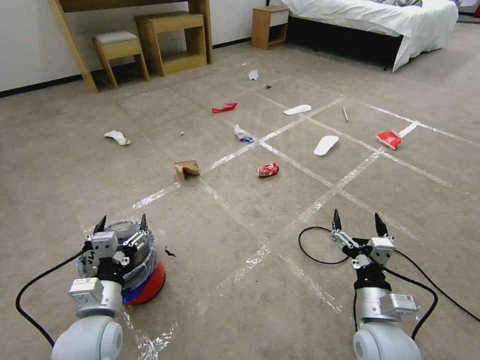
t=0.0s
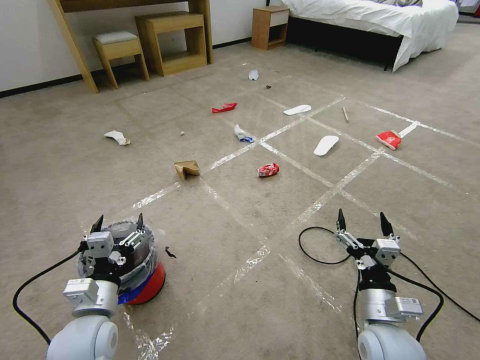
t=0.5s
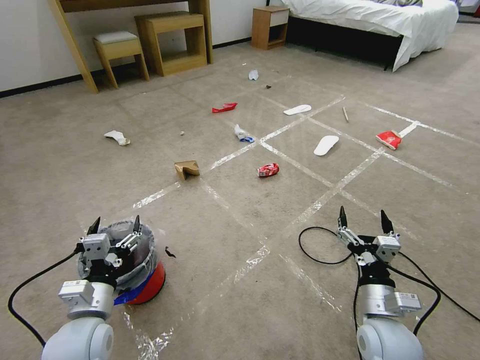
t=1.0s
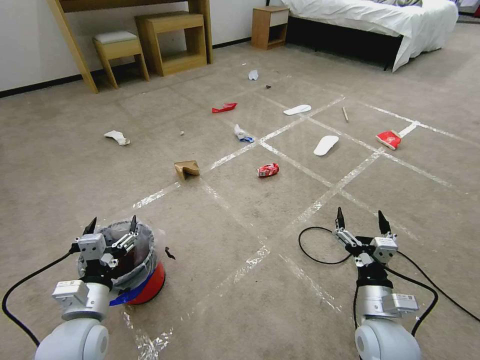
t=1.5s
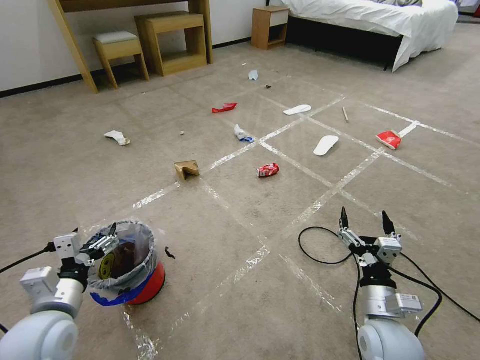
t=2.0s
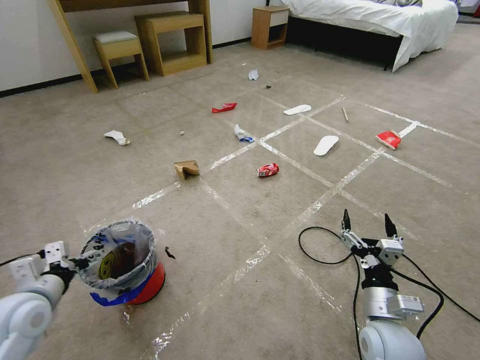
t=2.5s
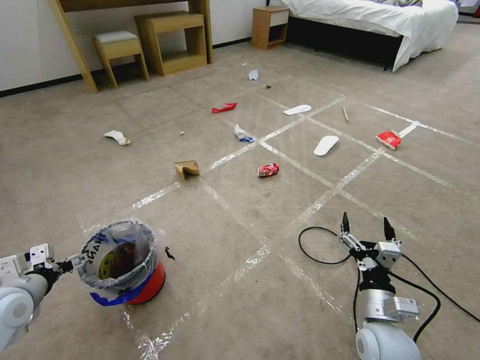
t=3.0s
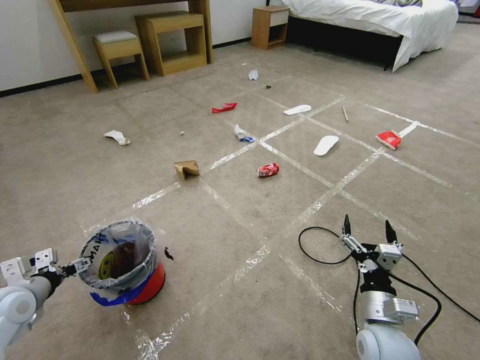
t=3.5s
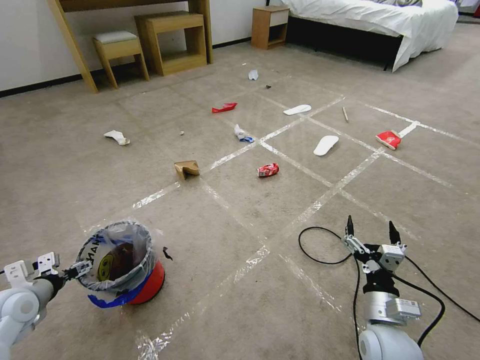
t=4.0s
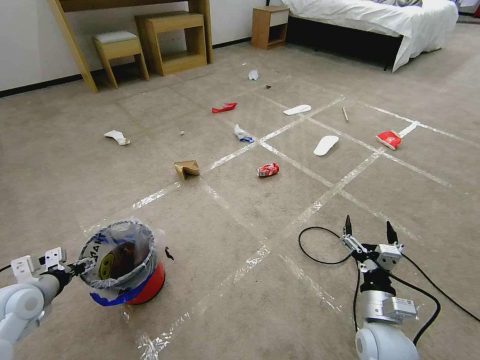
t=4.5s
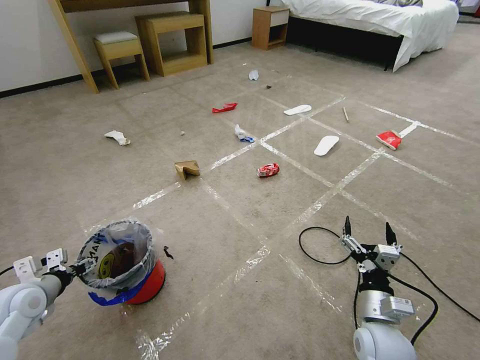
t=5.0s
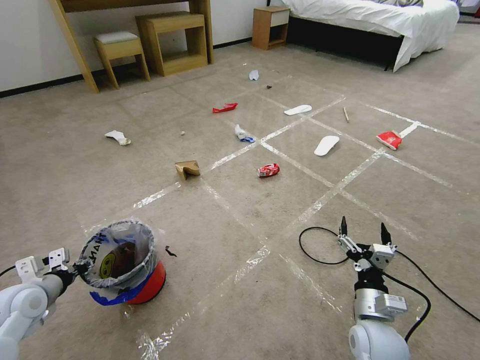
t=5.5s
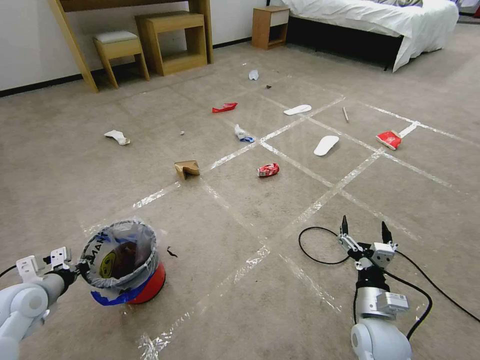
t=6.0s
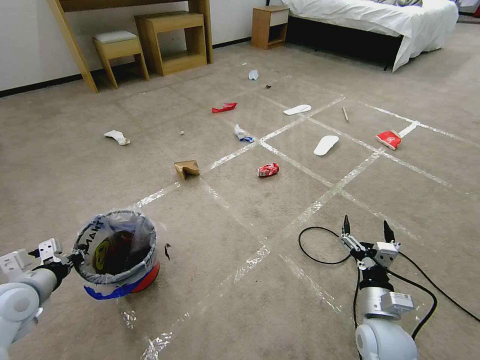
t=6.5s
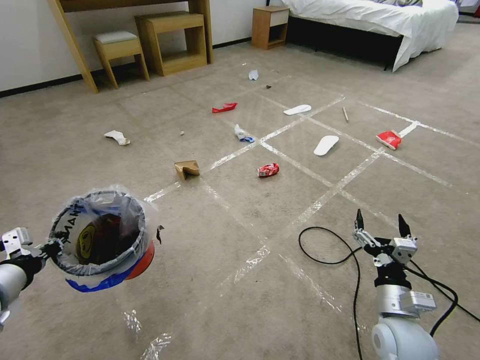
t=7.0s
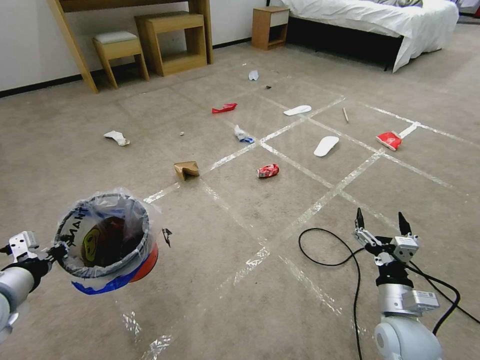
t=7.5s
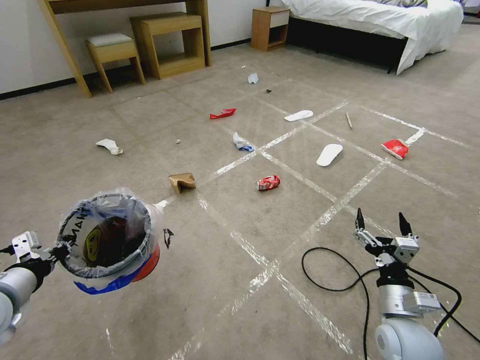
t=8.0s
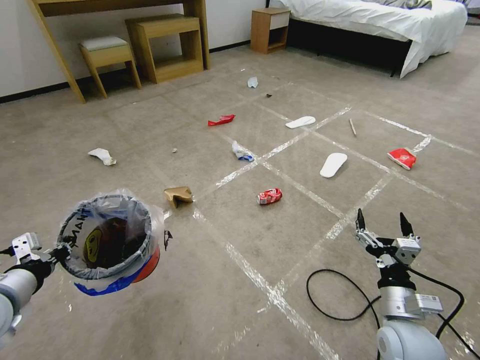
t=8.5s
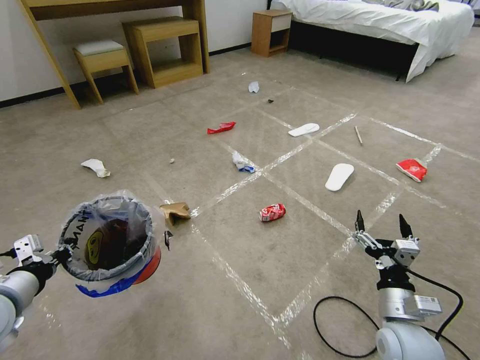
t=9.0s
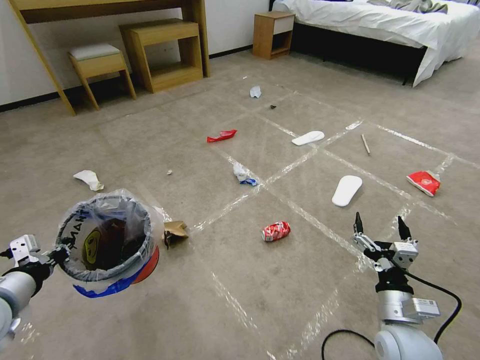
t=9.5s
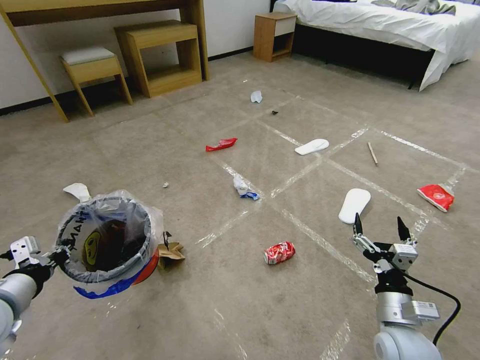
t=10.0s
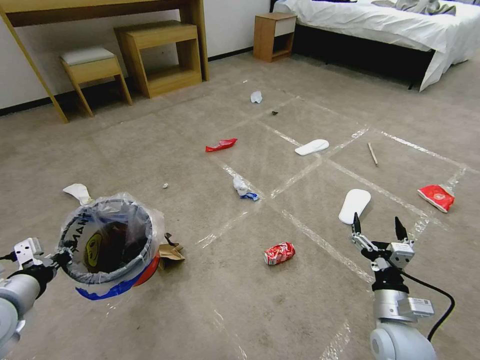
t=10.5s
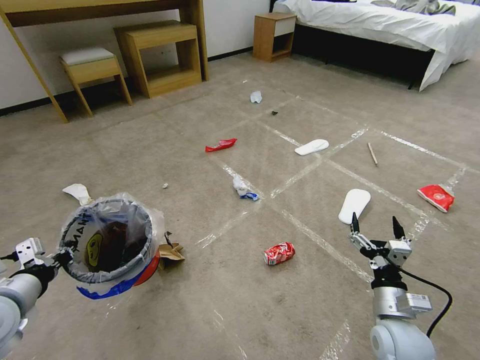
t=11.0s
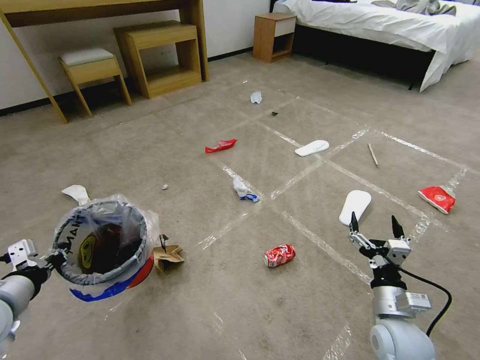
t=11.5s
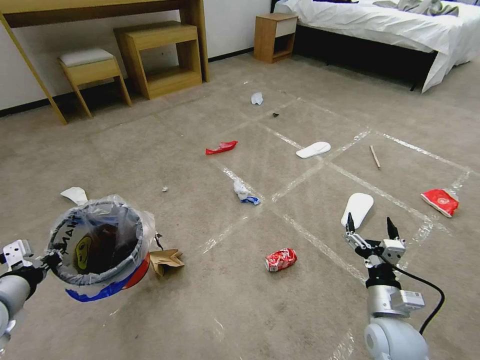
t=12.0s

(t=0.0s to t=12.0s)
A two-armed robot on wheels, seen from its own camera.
Task of the whole recording: Pick up the trash bin and place the garbage on the floor into it.
t=2.0s - t=4.0s: The left gripper travels to the left and forward by approximately 15 cm.
t=4.0s - t=6.0s: The left gripper closes its fingers.
t=6.0s - t=8.0s: The left gripper travels upward and backward by roughly 10 cm.
t=10.0s - t=12.0s: The grippers make only small movements.

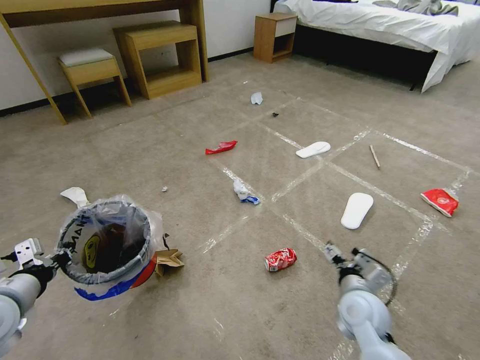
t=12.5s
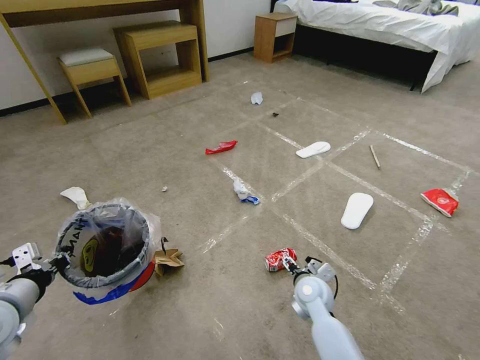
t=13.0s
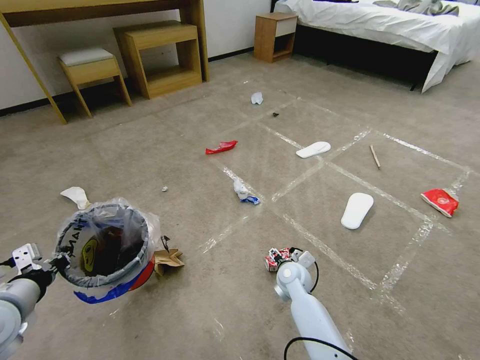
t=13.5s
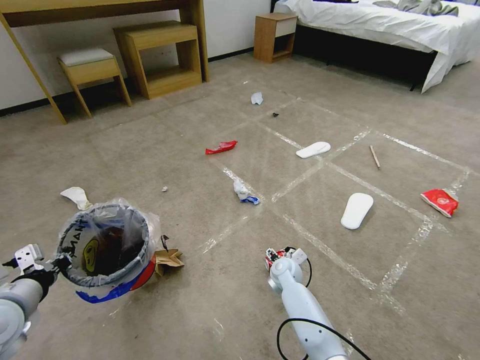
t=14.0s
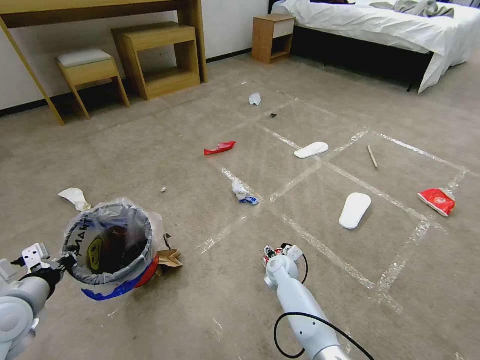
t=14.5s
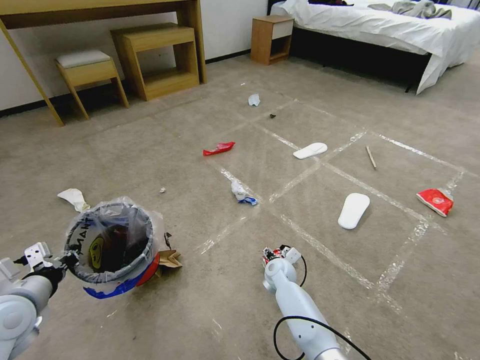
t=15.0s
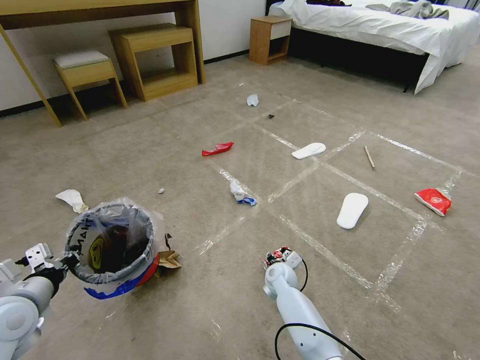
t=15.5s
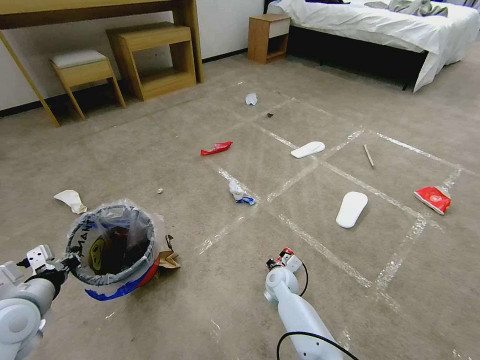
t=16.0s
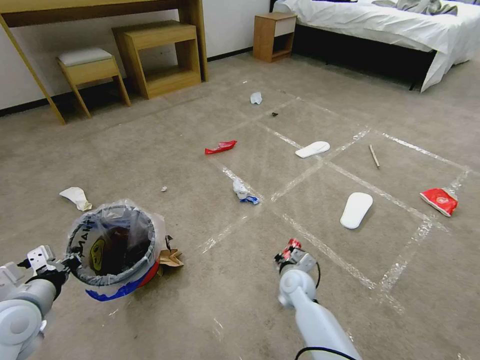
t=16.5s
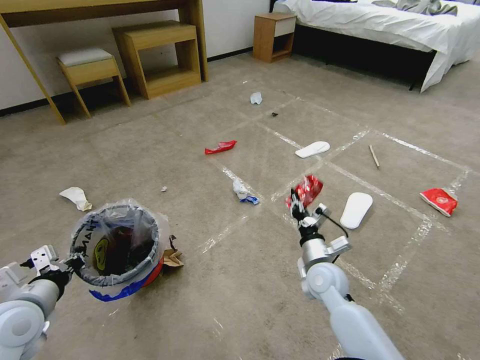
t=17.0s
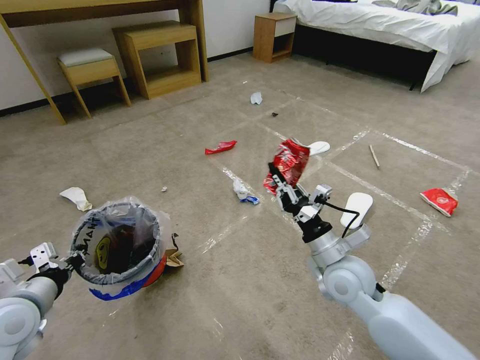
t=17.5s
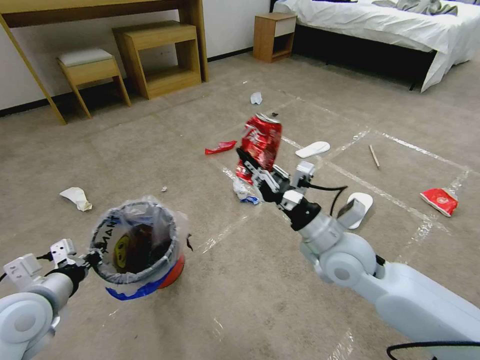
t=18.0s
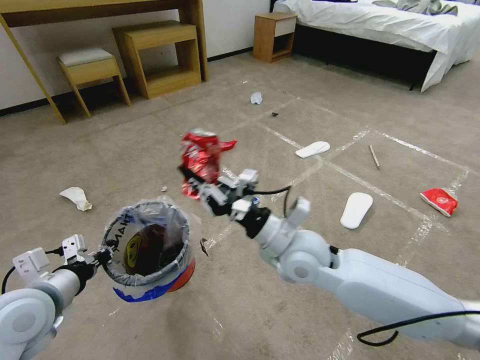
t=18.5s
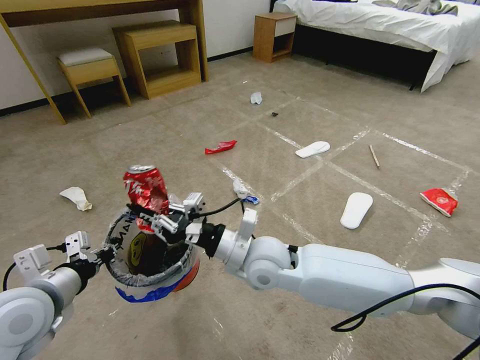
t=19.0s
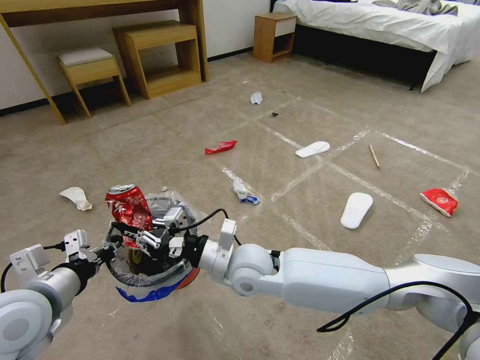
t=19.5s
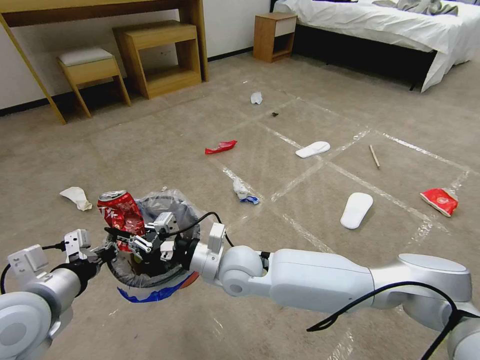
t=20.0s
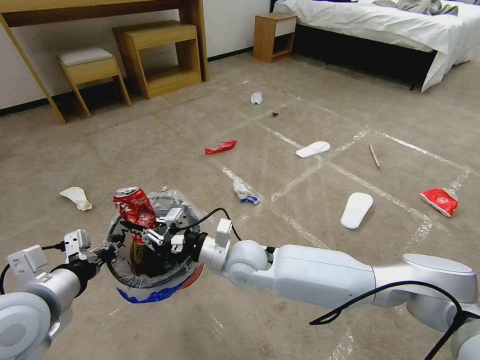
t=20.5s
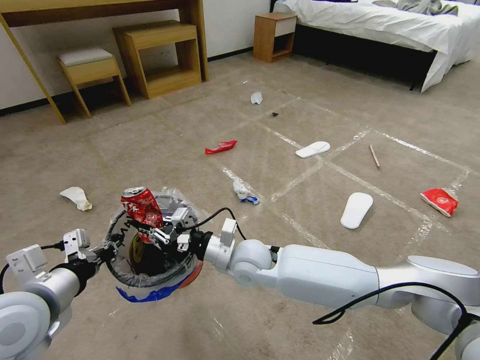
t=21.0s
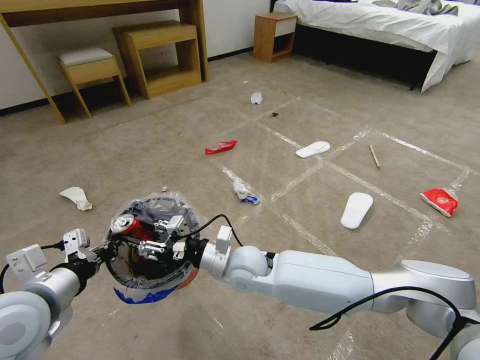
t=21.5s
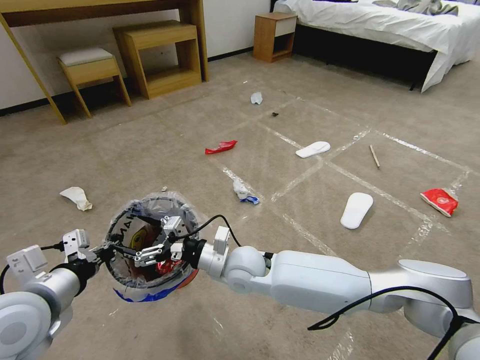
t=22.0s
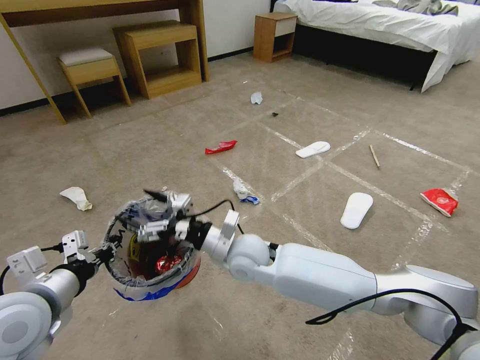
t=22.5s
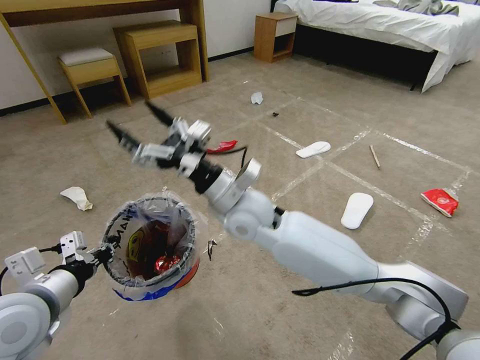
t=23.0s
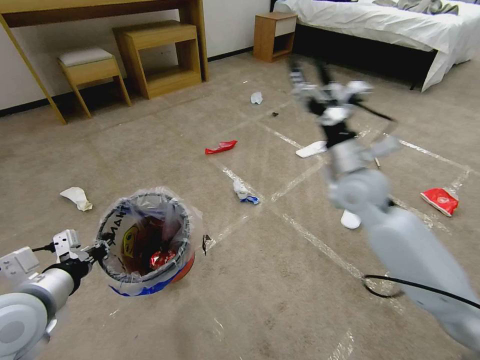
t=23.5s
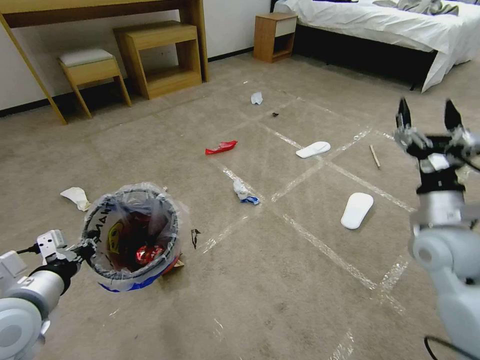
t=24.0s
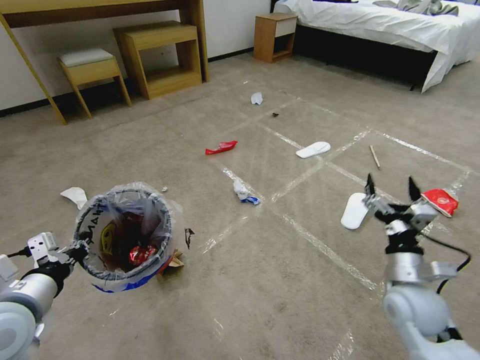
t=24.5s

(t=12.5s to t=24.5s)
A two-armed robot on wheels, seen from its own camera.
Task of the whole recording: Pick up the trash bin and place the garbage on the floor into it.
t=12.5s - t=14.5s: The right gripper goes roughly 25 cm forward, to the left and downward.
t=14.5s - t=16.5s: The right gripper is displaced backward by approximately 5 cm, and closes.
t=16.5s - t=18.5s: The right gripper travels upward by approximately 25 cm. Meanwhile the left gripper heads to the right, covering approximately 5 cm.
t=18.5s - t=20.5s: The right gripper travels to the left and downward by approximately 15 cm.
t=20.5s - t=22.5s: The right gripper opens up.
t=22.5s - t=24.5s: The right gripper goes roughly 35 cm to the right.

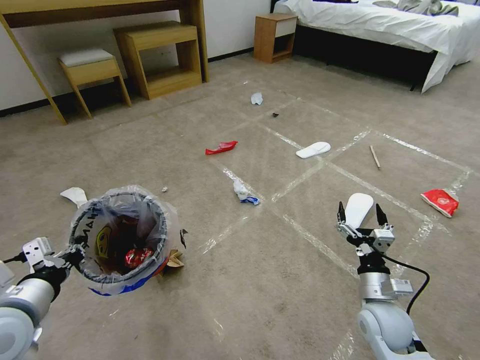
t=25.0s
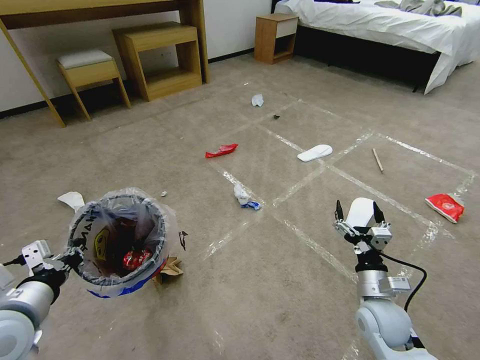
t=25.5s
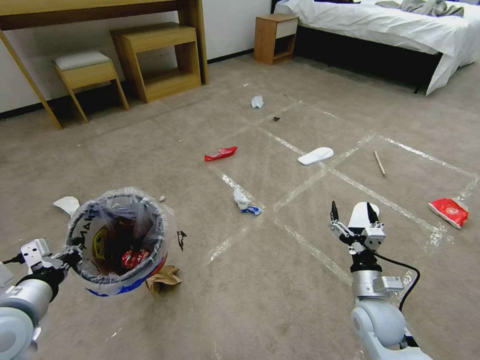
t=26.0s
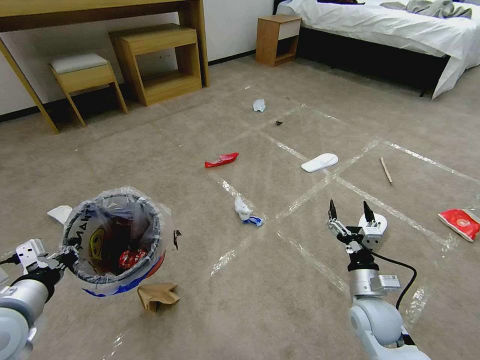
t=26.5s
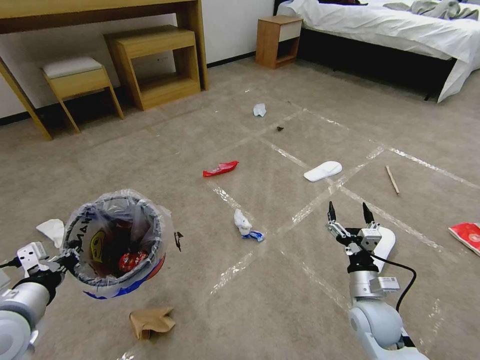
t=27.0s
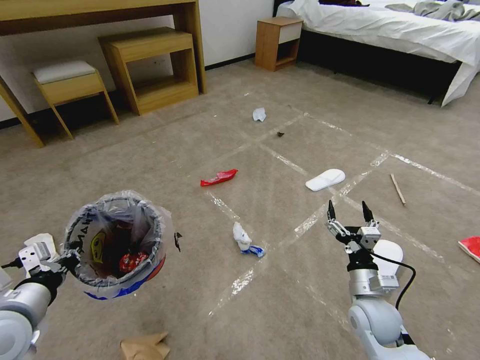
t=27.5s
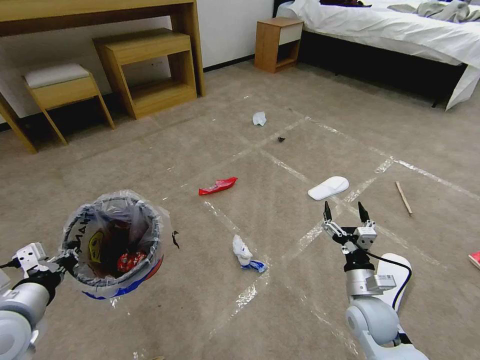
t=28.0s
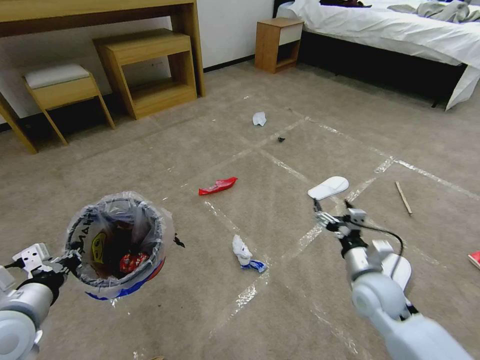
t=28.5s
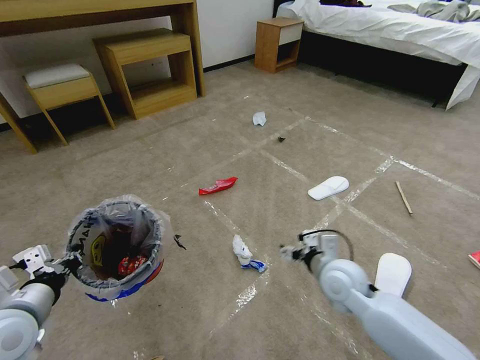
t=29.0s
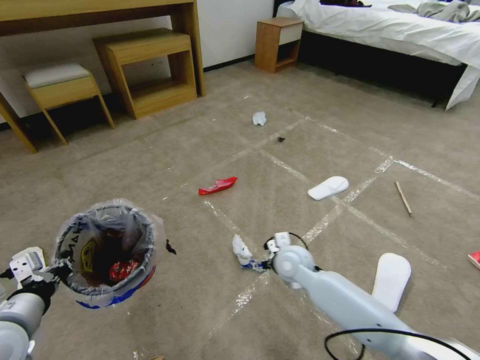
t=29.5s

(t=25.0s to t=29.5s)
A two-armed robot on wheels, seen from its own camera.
Task of the whole recording: Pick up the trash bin and place the garbage on the floor into it.
t=27.0s - t=29.5s: The right gripper travels to the left and forward by roughly 20 cm.
